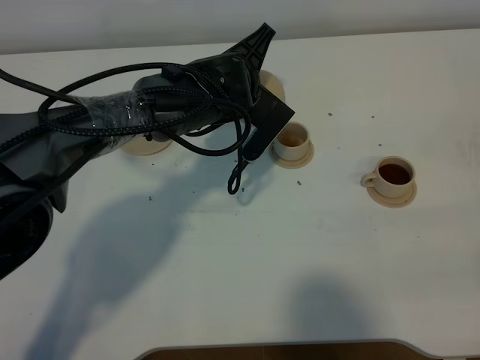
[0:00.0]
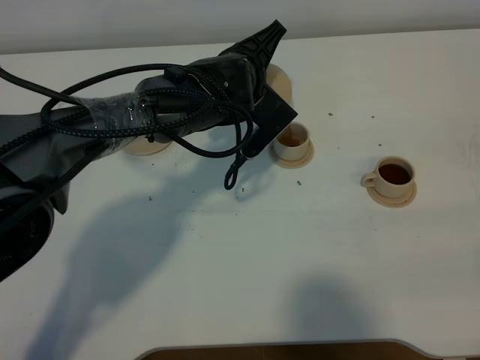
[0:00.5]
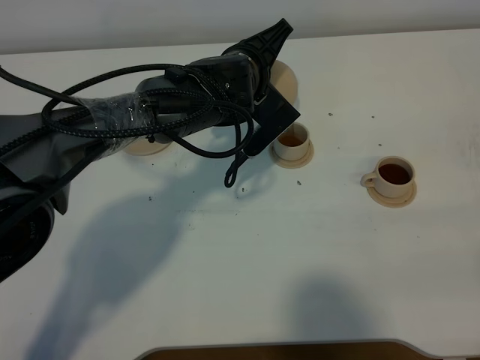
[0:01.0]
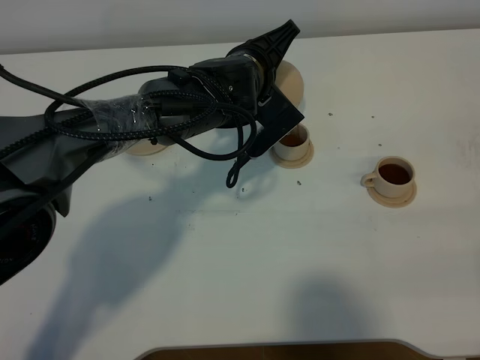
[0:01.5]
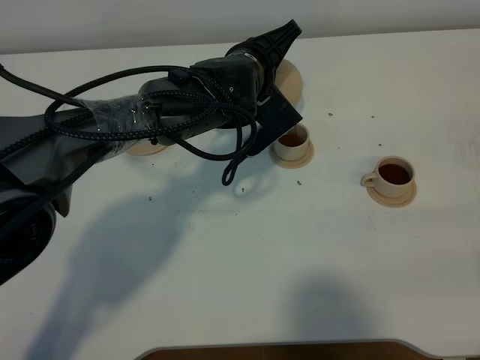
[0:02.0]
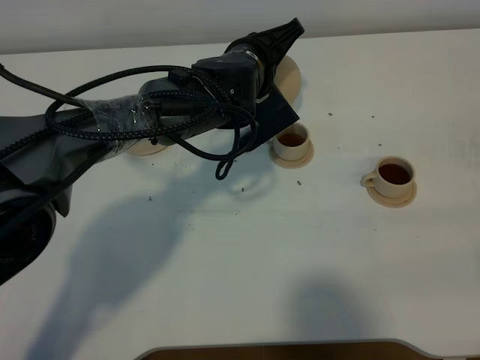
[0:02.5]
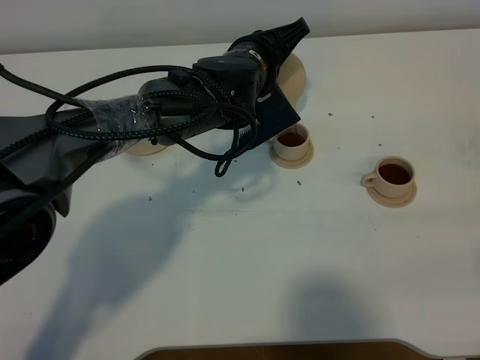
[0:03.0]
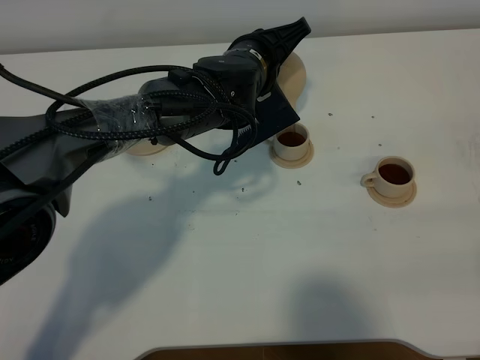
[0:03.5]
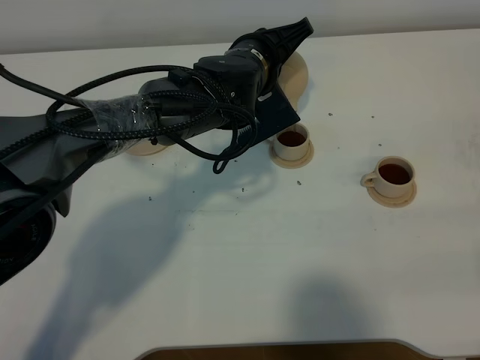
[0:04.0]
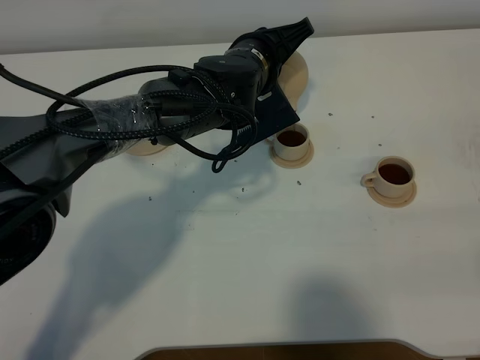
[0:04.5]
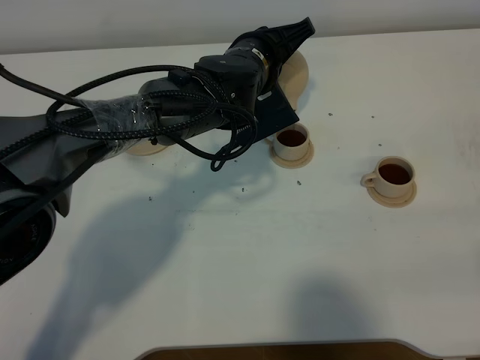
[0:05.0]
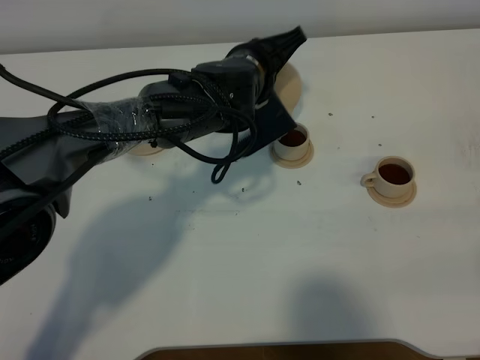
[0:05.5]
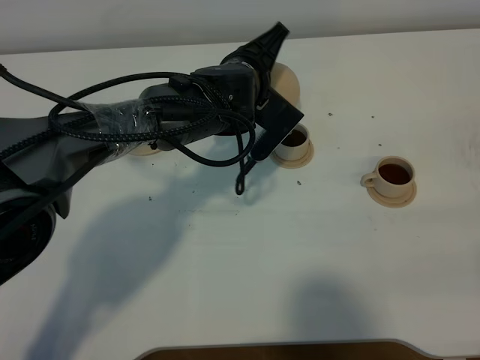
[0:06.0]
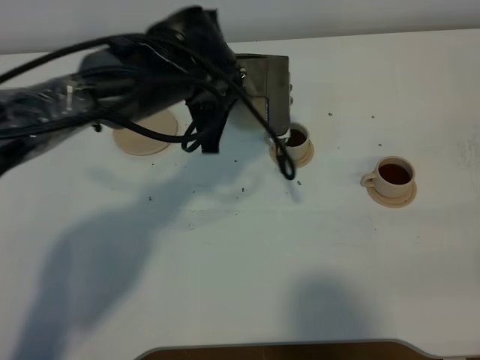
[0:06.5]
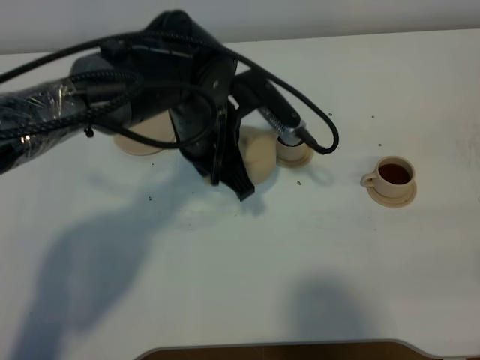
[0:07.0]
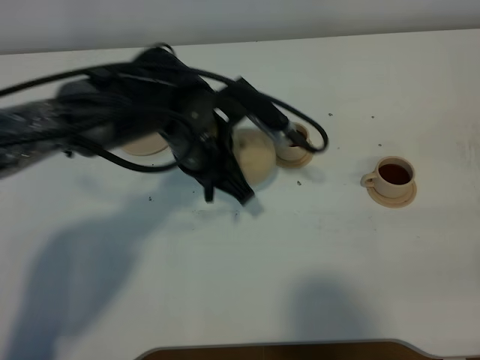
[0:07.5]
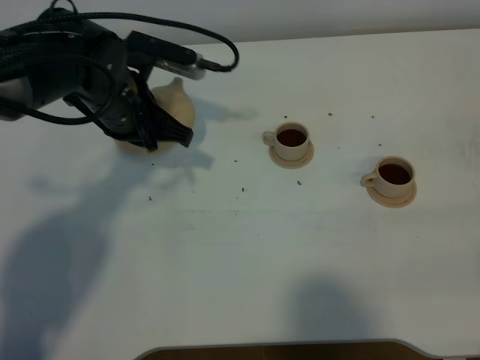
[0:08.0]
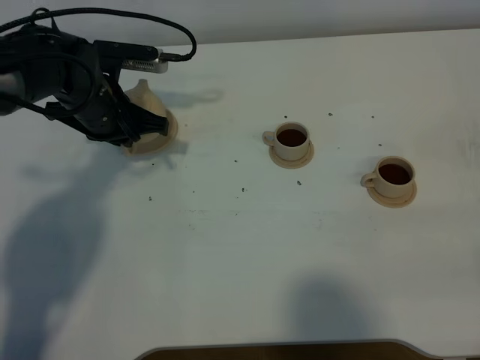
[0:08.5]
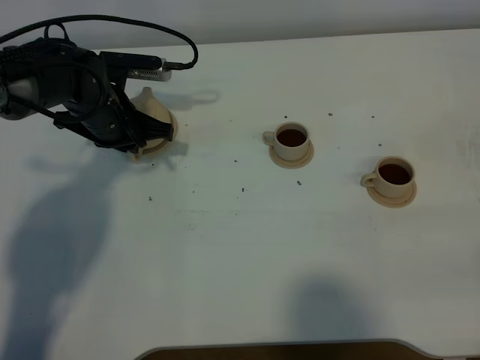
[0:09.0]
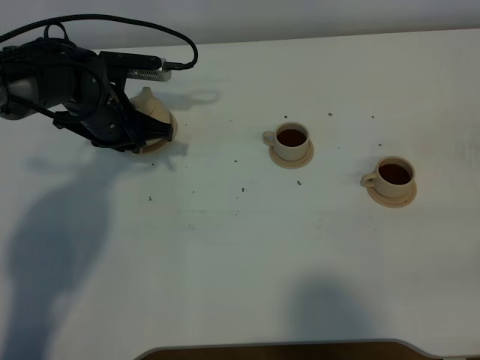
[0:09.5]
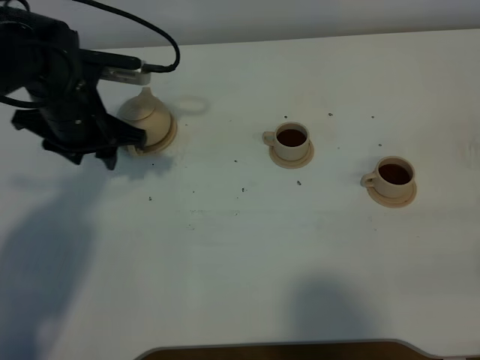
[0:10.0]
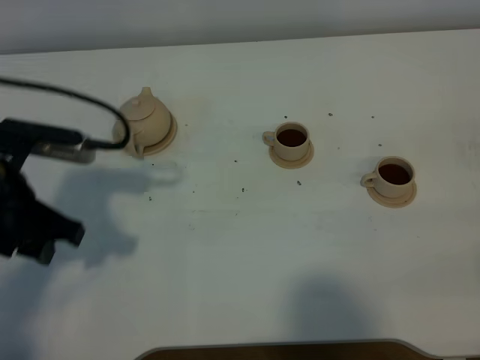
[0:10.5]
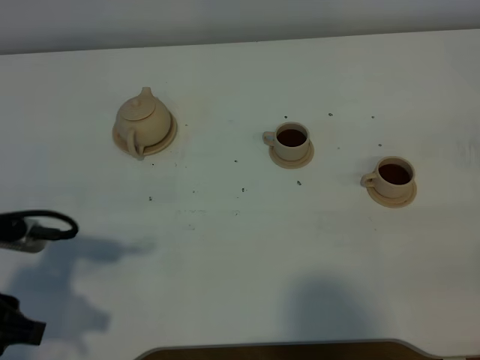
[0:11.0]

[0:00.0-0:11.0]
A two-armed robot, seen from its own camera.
Task of the whole recording: grasp the brown teapot and pour the tea into the two brown teacups one by one, put the brown teapot back in its original place.
Step, 0:00.0 to 0:06.0: Pour tea into the teacup with the left gripper.
0:00.0 to 0:02.0: The grippers make only small movements.
0:02.0 to 0:03.5: There are only small adjustments of the grippers.
0:03.5 to 0:05.5: Both grippers stay about where they are.
0:05.5 to 0:07.5: The left gripper is displaced backward and to the left by roughly 10 cm.
0:07.5 to 0:09.0: The left gripper goes roughly 15 cm to the left, forward and downward.
0:09.0 to 0:11.0: The left gripper heads backward, covering about 30 cm, and opens its fingers.

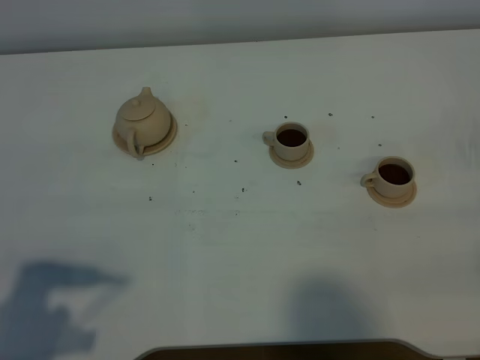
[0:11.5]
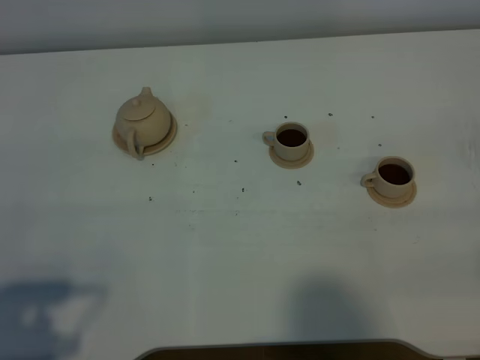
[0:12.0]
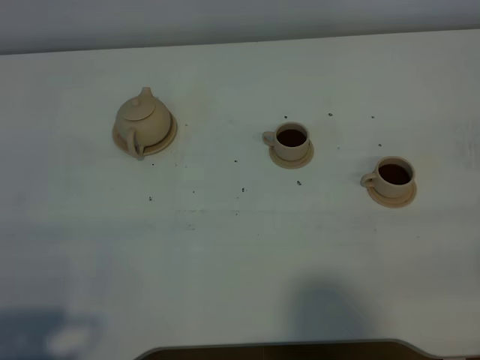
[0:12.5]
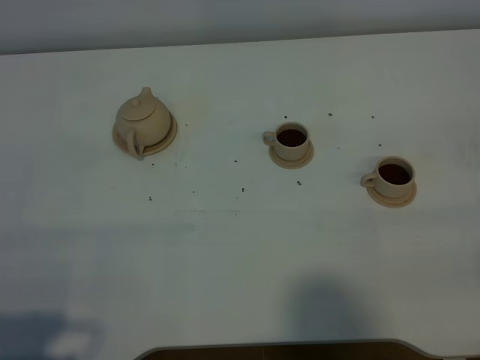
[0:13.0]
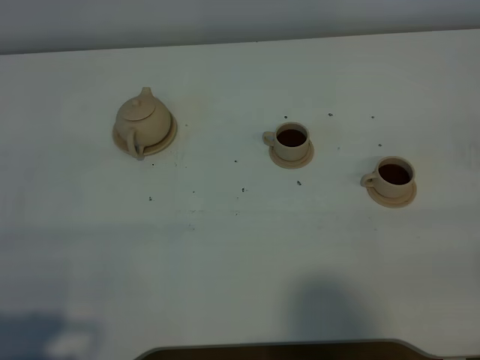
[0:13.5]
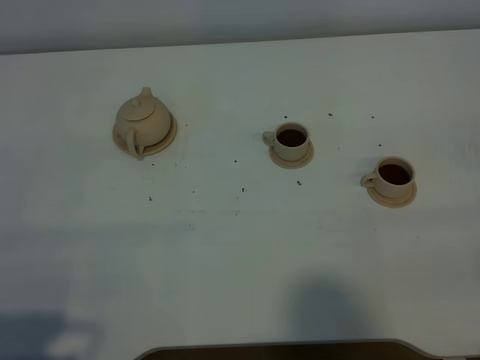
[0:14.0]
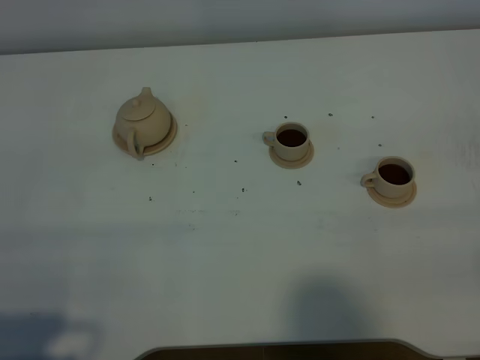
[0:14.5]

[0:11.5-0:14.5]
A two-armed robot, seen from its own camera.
Task of the whole recording: grasp the brown teapot and pour the tea into the two brown teacups one by one, put the brown teapot back in its original place.
0:11.5 to 0:13.0: The left gripper is displaced backward by some 5 cm.
0:13.0 to 0:14.5: Both grippers stay about where they are.

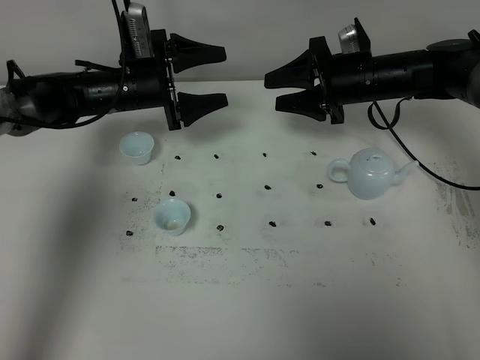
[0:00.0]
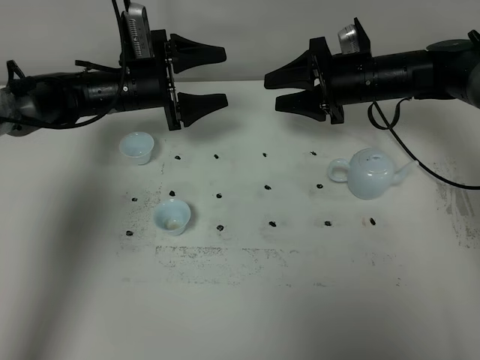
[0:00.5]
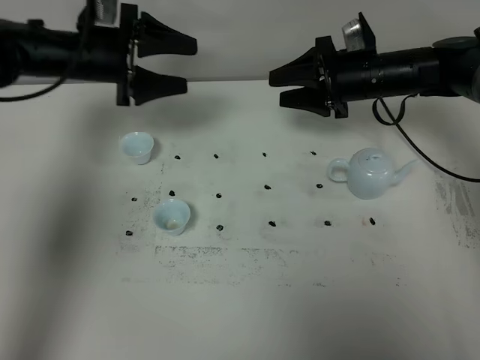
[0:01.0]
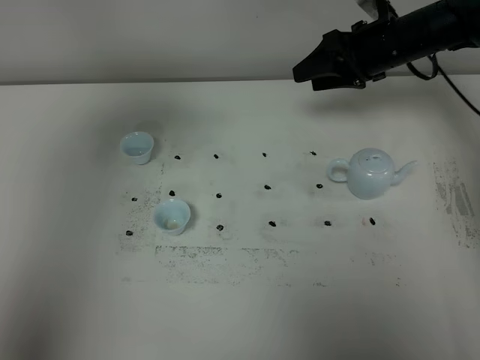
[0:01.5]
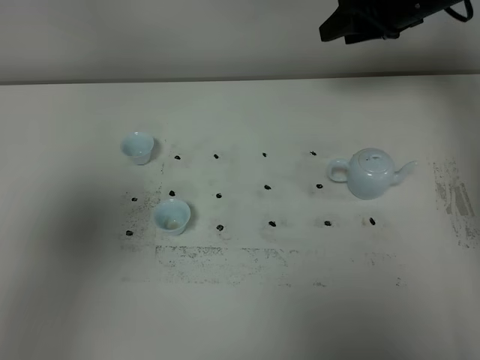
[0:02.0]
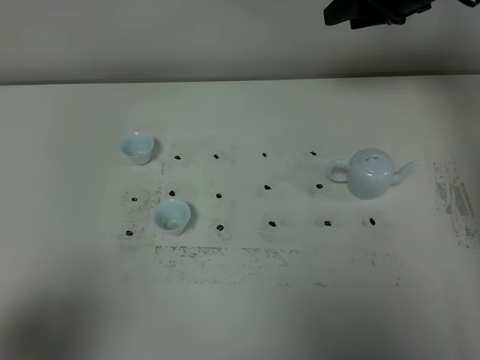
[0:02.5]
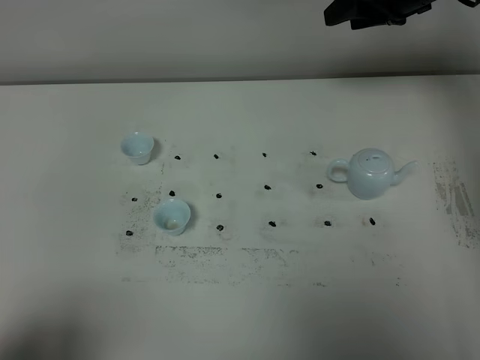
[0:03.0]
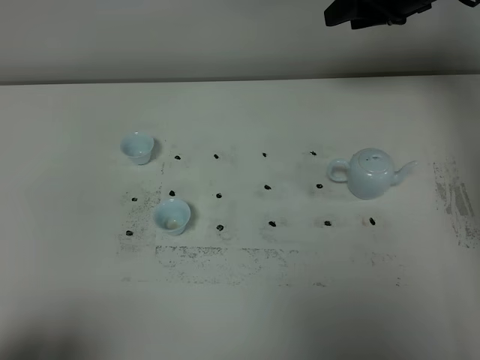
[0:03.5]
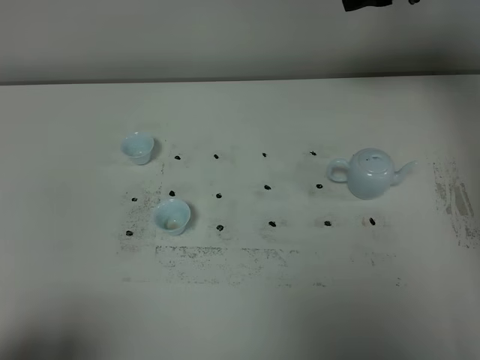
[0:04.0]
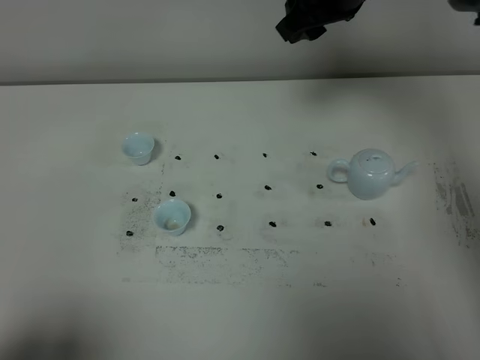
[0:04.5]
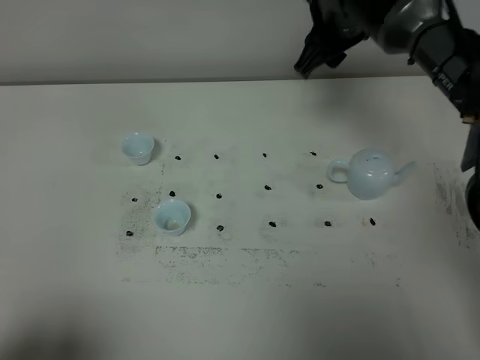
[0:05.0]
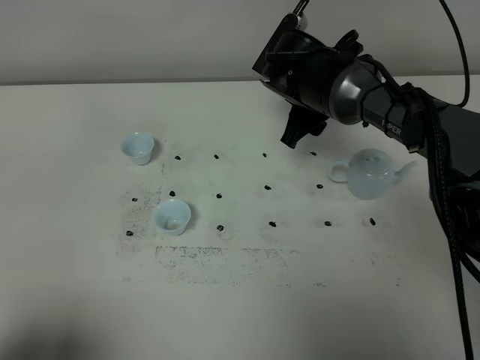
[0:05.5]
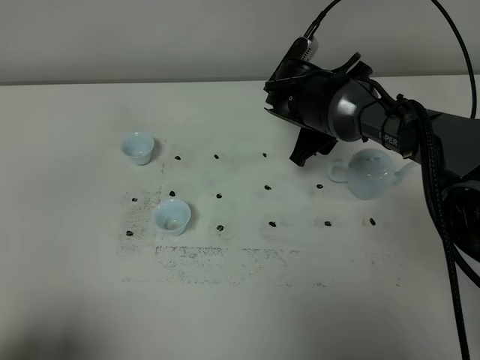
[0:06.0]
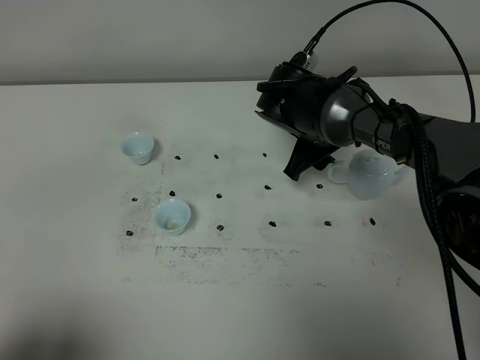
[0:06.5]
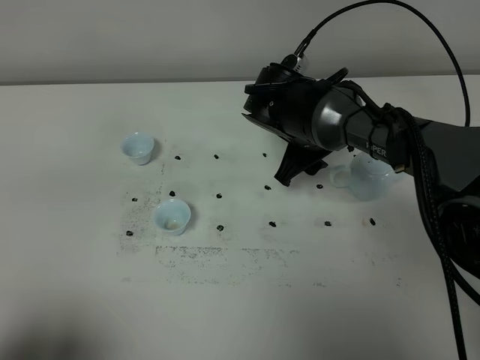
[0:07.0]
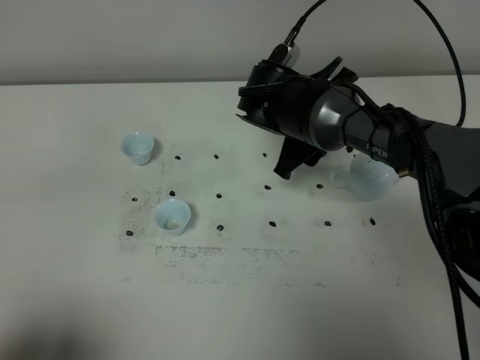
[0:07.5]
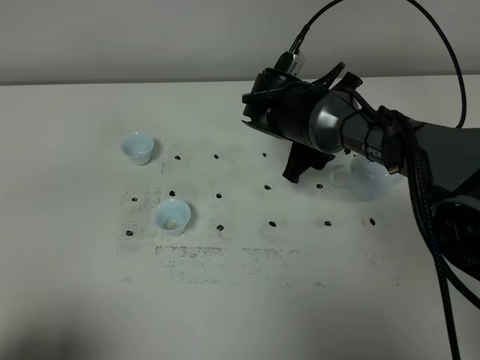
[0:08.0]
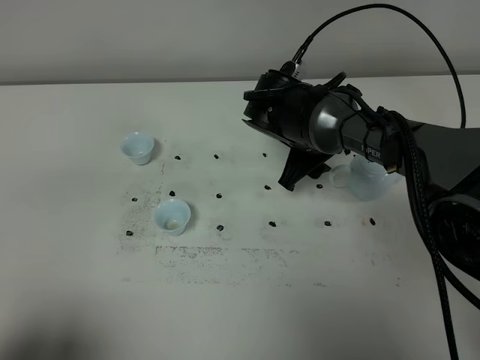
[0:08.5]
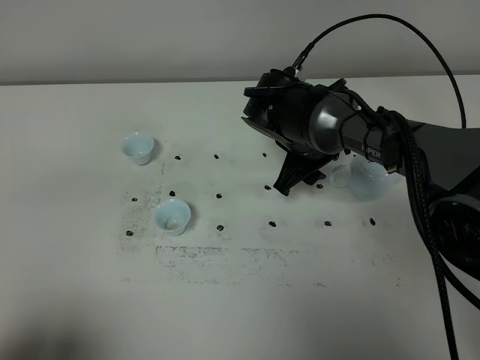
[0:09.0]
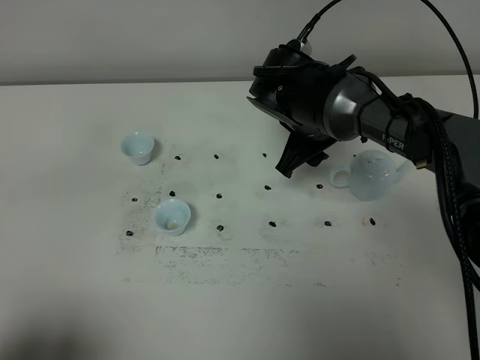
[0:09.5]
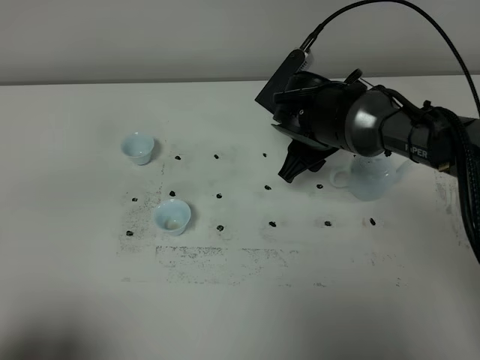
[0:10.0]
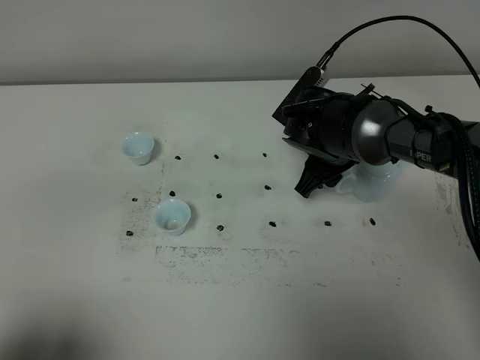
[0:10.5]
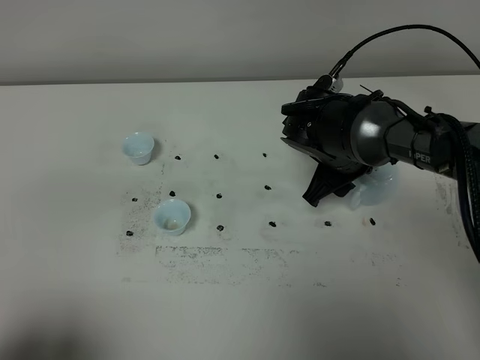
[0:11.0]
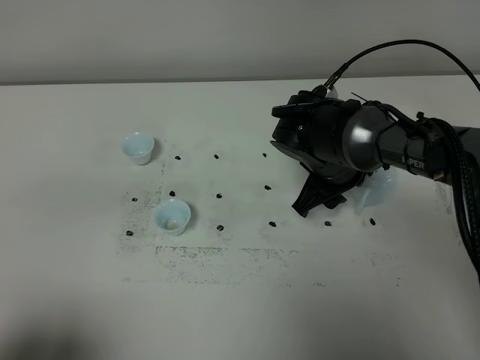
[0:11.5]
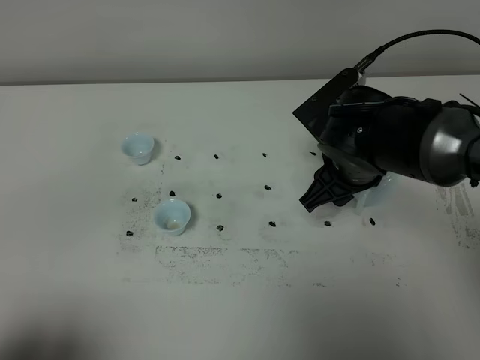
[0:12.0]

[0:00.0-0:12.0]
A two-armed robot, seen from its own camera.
Task of the whole recording: grasp the blue porcelain teapot and pour the tea into the two blue porcelain teacups one by one, put the blue porcelain teapot back in its original place.
0:00.0 to 0:02.0: The right gripper moves upward and to the right, roughly 10 cm, while the left gripper moves backward and upward, approximately 50 cm.
0:02.0 to 0:04.0: The left gripper is displaced downward and backward by approximately 20 cm. The right gripper shifts some 5 cm upward.
0:04.0 to 0:06.0: The right gripper is displaced downward and to the left by about 20 cm.
0:06.0 to 0:10.0: The grippers move only a little.
0:10.0 to 0:12.0: The right gripper travels backward by roughly 5 cm.
